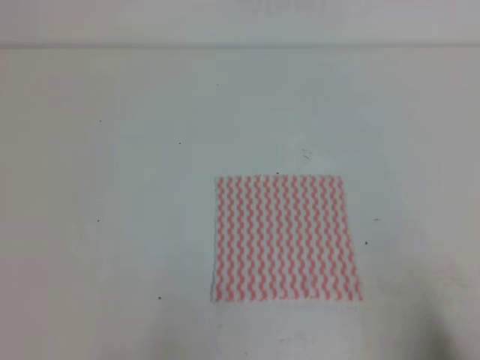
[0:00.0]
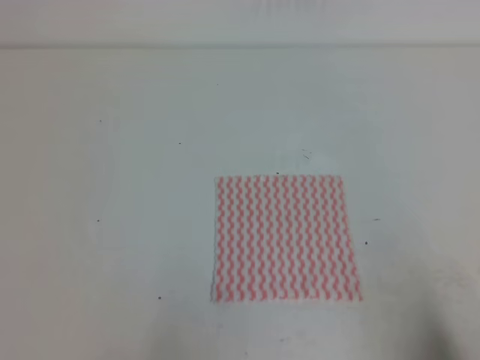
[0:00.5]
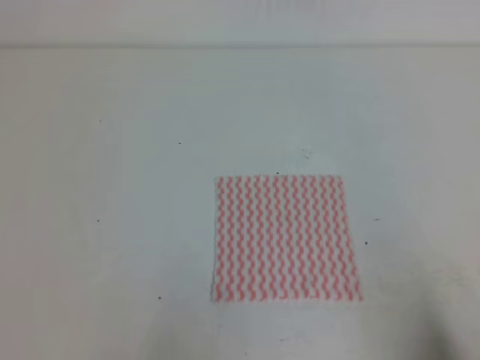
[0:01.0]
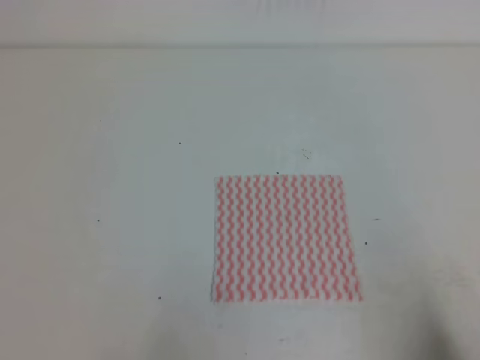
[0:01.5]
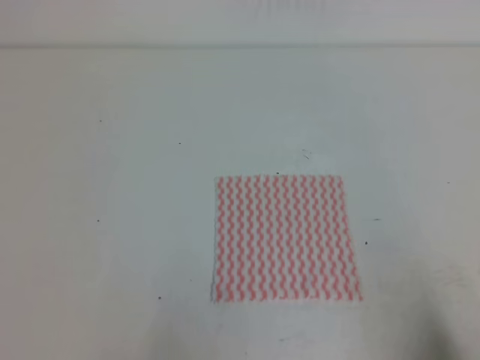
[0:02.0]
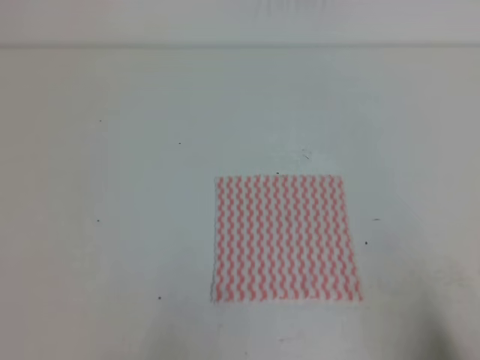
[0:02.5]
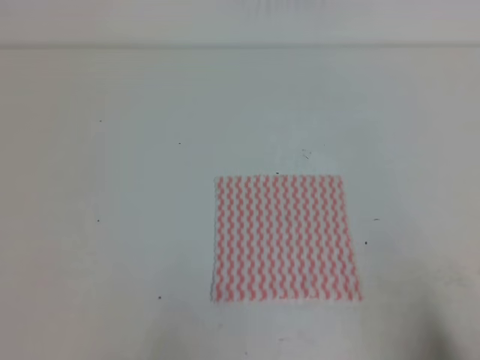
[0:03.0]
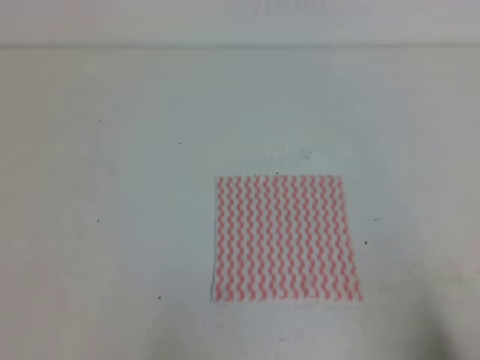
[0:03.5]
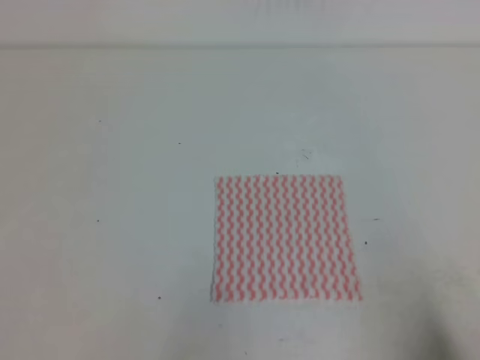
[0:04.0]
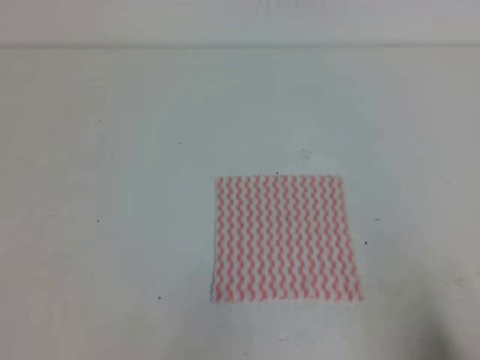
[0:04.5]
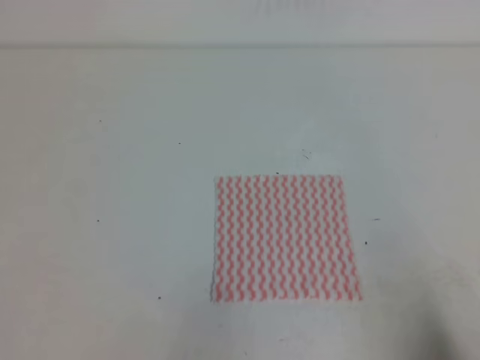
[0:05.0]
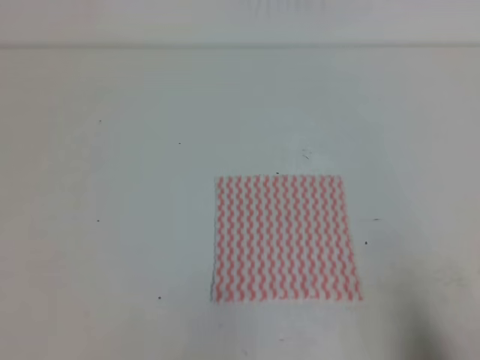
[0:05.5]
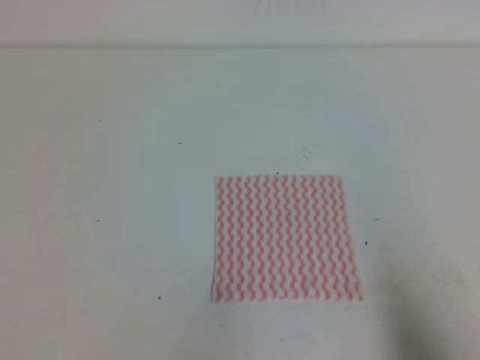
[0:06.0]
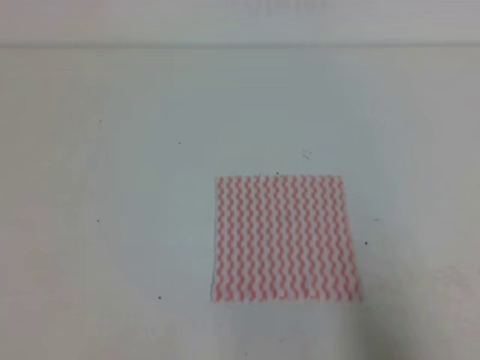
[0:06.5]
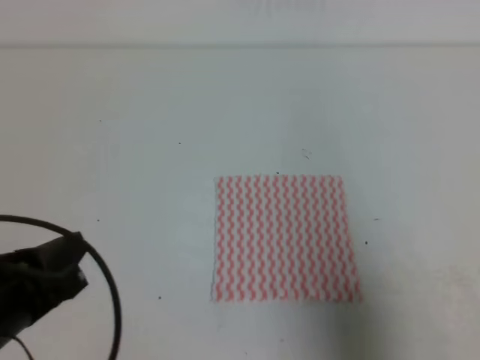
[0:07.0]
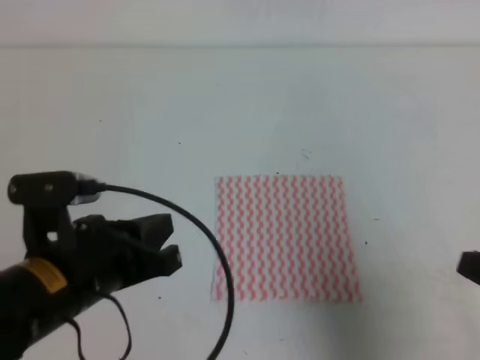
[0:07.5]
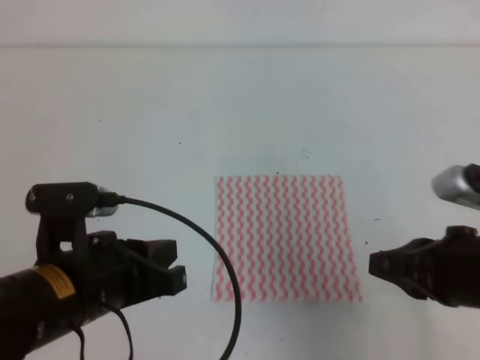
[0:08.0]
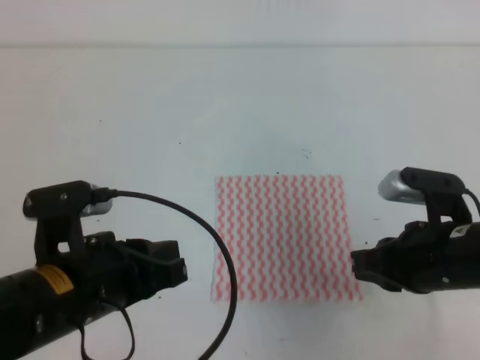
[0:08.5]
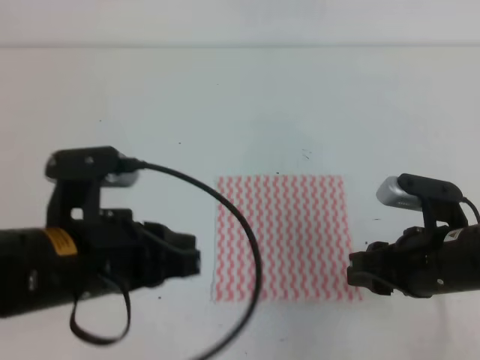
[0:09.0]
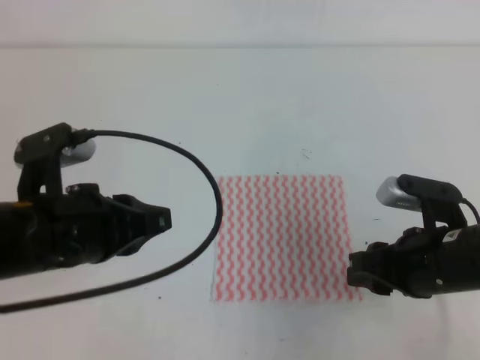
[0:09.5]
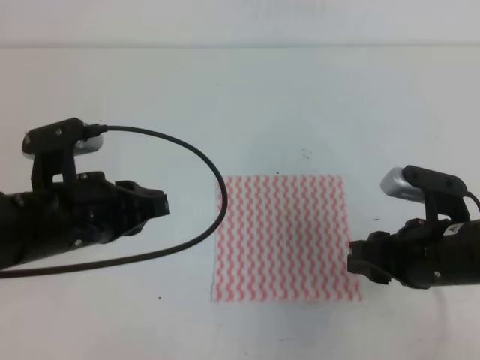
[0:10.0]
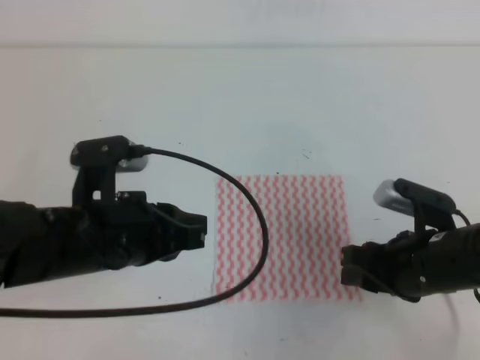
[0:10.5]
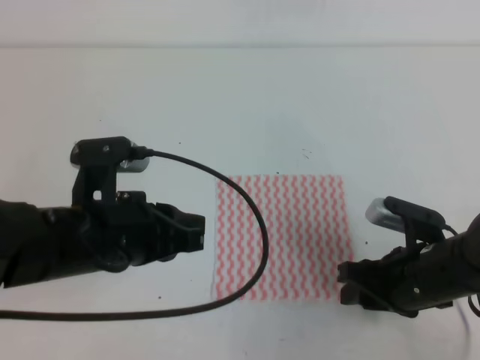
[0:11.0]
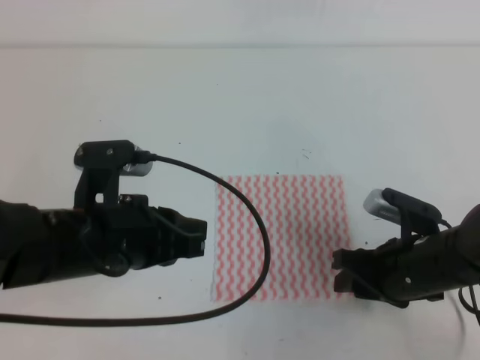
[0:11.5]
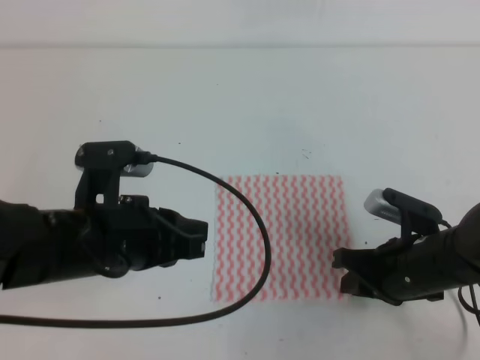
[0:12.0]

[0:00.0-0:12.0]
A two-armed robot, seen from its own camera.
0:00.0 to 0:02.0: Neither gripper changes place.
0:06.0 to 0:08.0: The right gripper travels forward and to the left by roughly 15 cm. The left gripper moves to the right and forward, some 15 cm.
0:08.0 to 0:10.0: The left gripper moves forward, roughly 5 cm; the right gripper is displaced forward and downward by about 10 cm, and opens.
0:10.0 to 0:12.0: The right gripper goes about 5 cm downward, and closes.

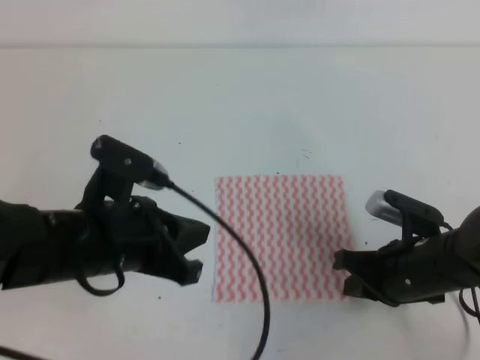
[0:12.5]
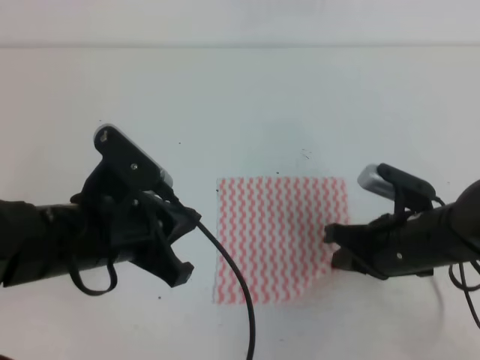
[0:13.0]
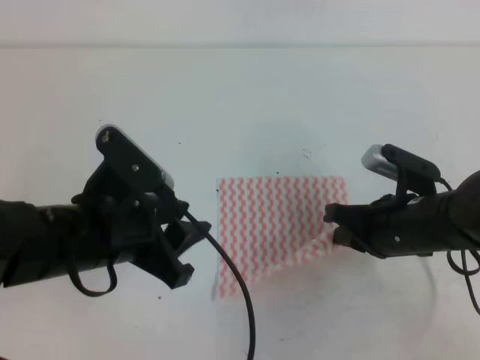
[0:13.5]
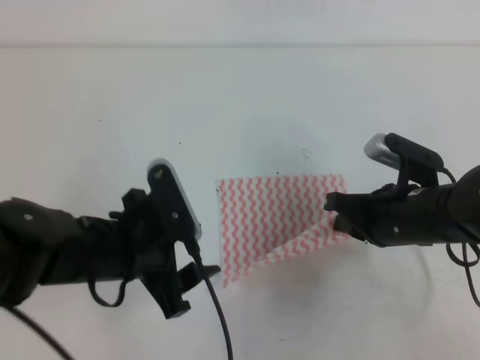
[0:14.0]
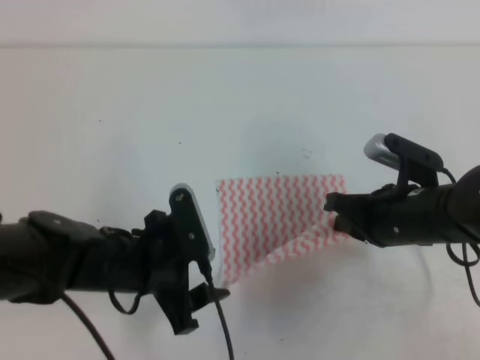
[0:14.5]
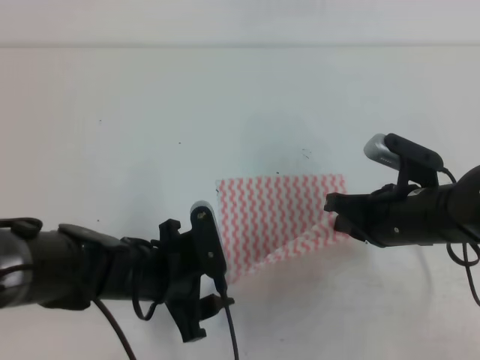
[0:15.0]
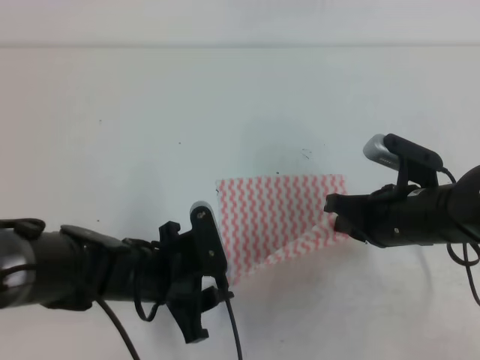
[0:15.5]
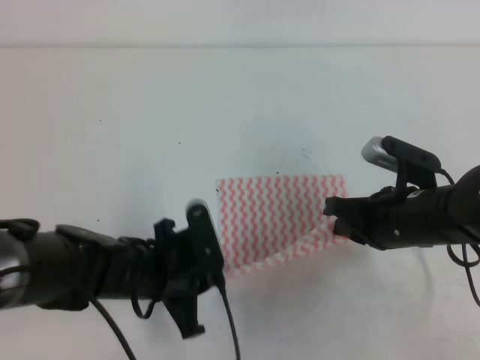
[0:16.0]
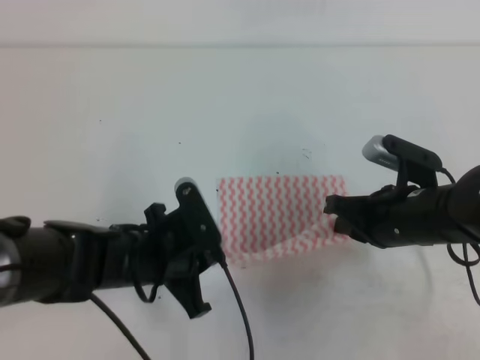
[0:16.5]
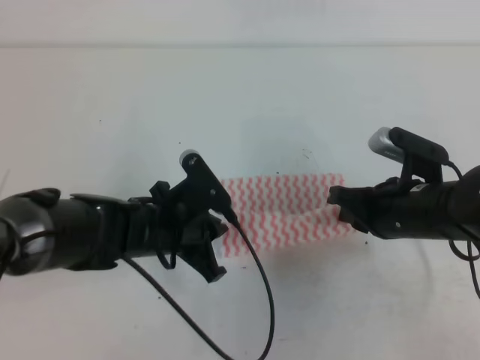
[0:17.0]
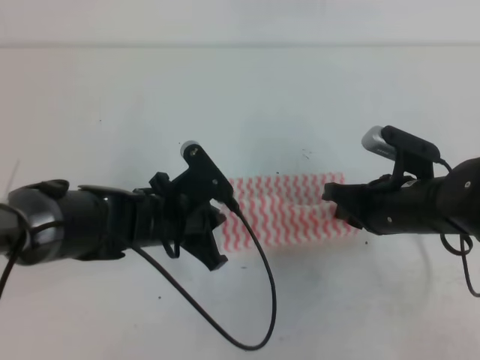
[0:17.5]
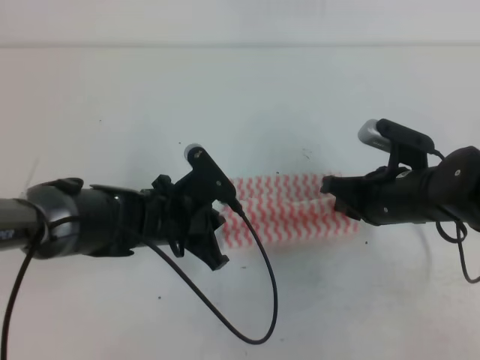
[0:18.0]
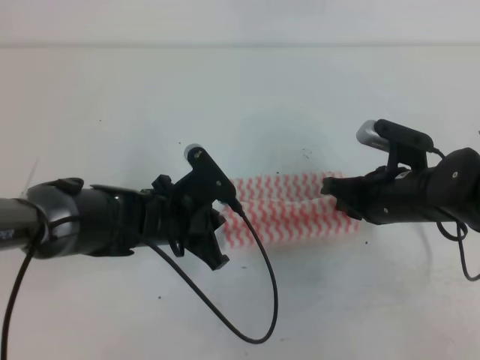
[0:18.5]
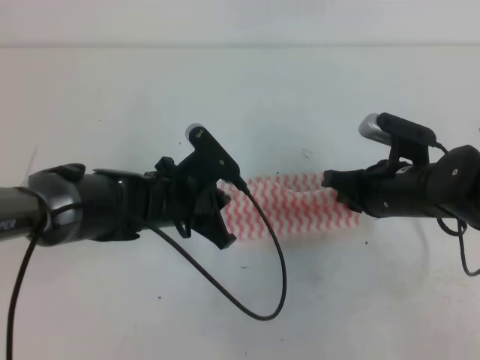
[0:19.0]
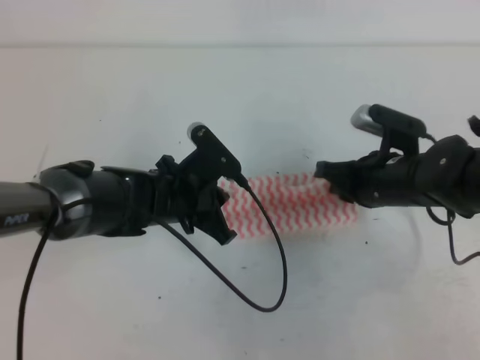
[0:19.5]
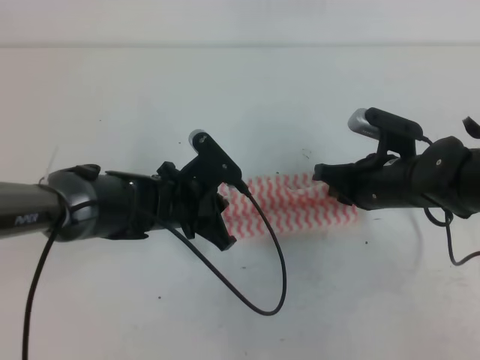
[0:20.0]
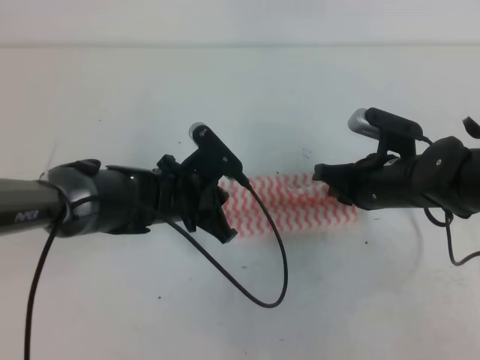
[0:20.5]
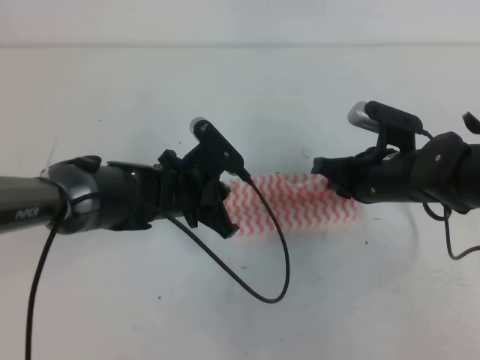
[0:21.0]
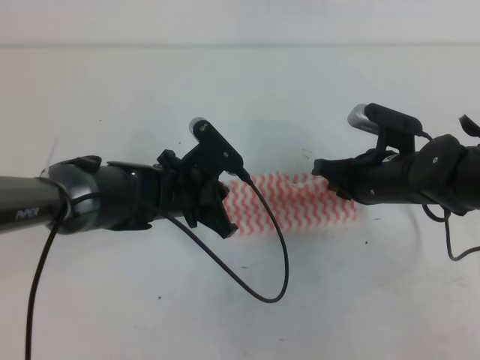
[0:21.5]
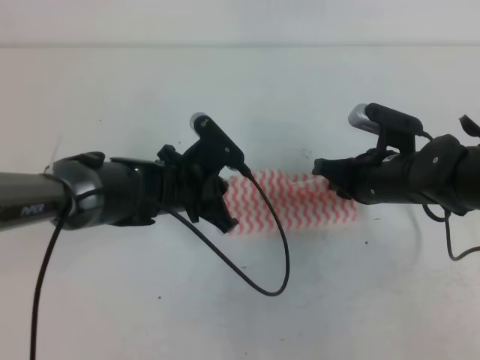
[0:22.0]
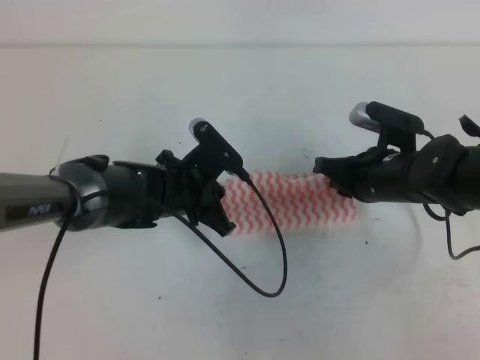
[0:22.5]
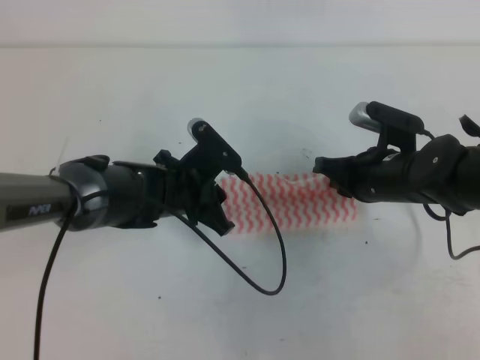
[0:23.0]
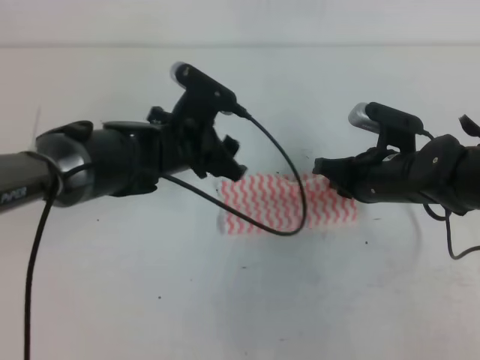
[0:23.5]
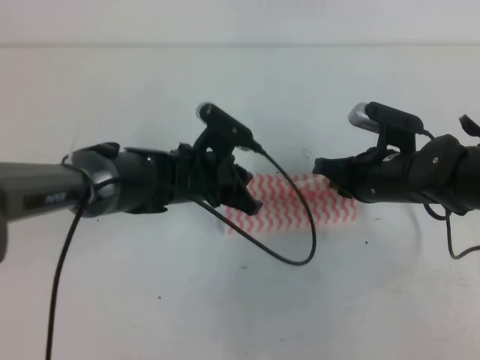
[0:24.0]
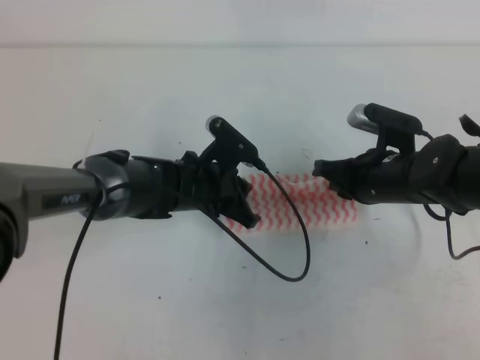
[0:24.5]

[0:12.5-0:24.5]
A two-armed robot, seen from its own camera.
Step, 0:12.5 to 0:16.0: Fold the towel upwards with the both gripper.
Step, 0:16.5 to 0:19.5: Tidy up the towels.
0:12.5 to 0:14.5: The right gripper changes place by about 5 cm, while the left gripper goes about 10 cm downward, and opens its fingers.
0:14.5 to 0:16.5: The left gripper closes its fingers.
0:16.5 to 0:18.5: The left gripper moves forward, roughly 5 cm.
0:18.5 to 0:20.5: The grippers make only small movements.
0:20.5 to 0:22.5: Both grippers stay put.
0:22.5 to 0:24.5: The left gripper opens, then closes again.

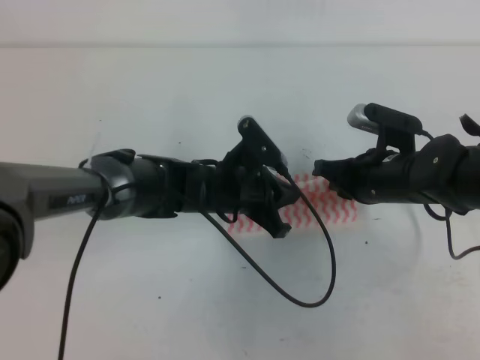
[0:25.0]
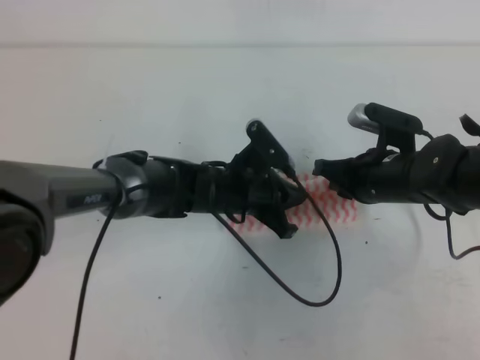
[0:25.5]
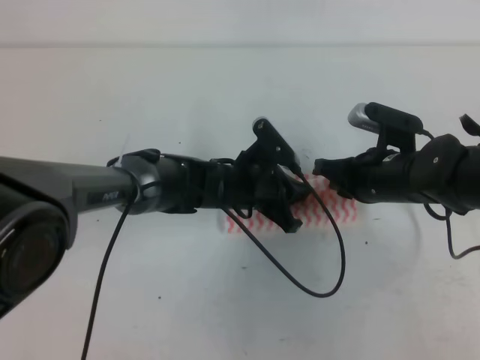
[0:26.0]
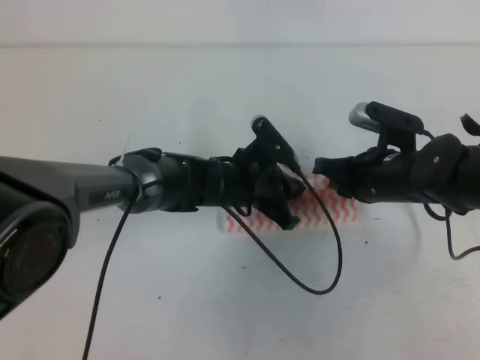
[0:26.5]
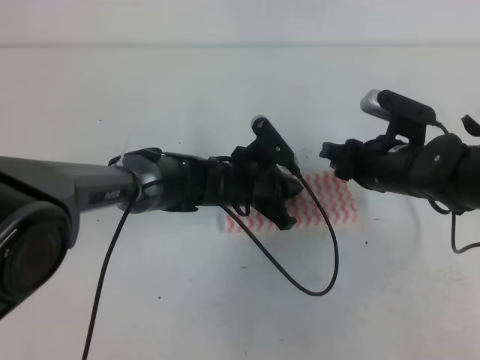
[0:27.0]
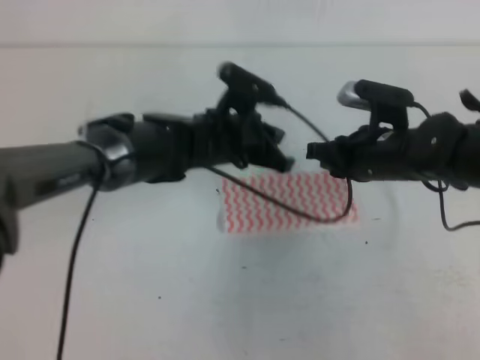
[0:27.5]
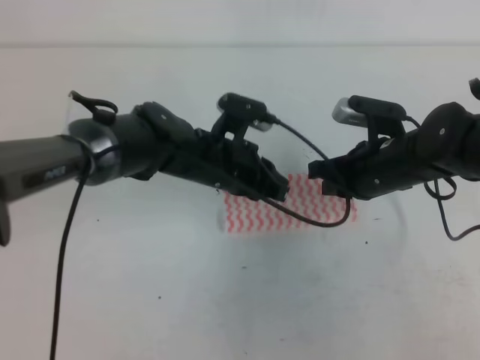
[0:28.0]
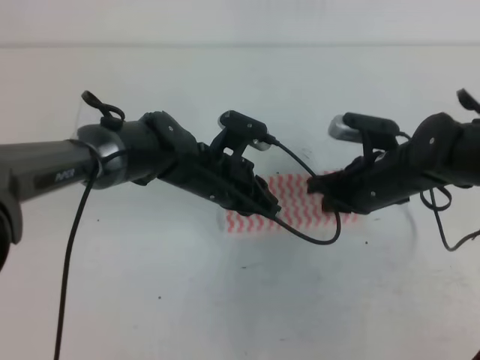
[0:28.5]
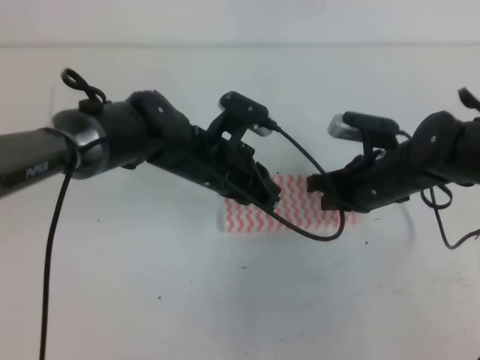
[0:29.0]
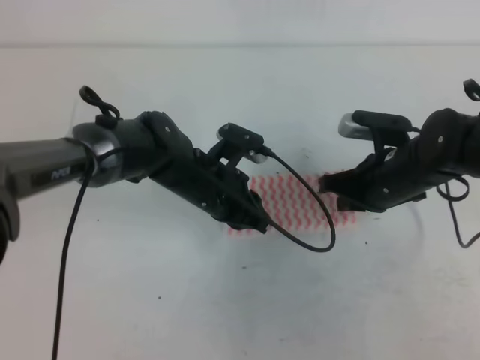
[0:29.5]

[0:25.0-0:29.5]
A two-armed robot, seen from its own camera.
0:25.0 to 0:27.0: The right gripper opens its fingers.
0:27.0 to 0:29.5: The right gripper closes up. The left gripper travels to the left by about 5 cm.
